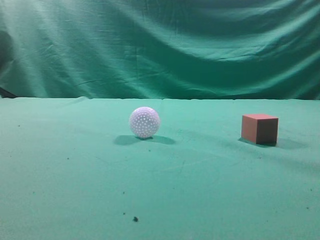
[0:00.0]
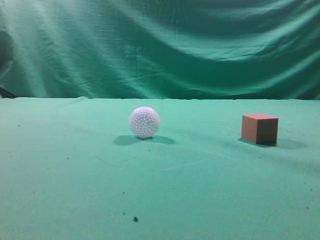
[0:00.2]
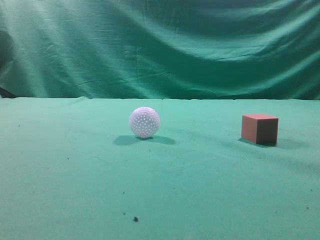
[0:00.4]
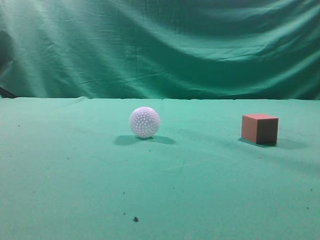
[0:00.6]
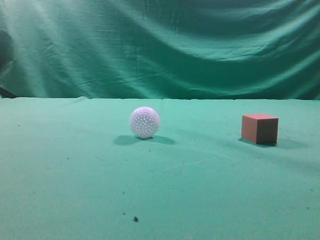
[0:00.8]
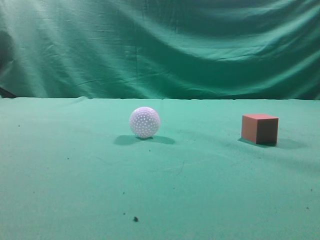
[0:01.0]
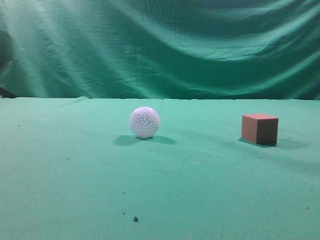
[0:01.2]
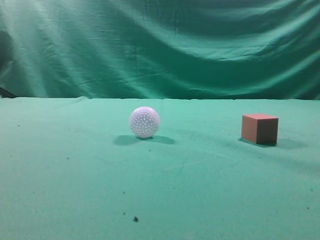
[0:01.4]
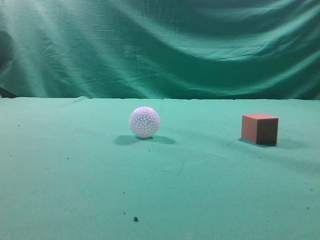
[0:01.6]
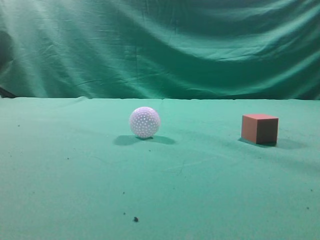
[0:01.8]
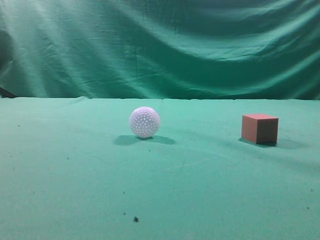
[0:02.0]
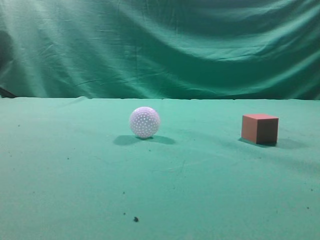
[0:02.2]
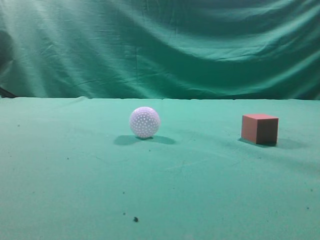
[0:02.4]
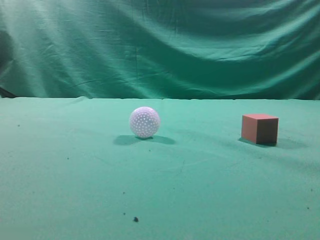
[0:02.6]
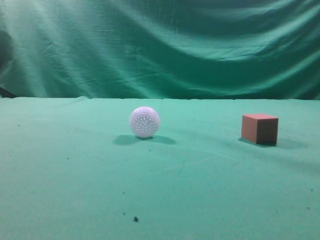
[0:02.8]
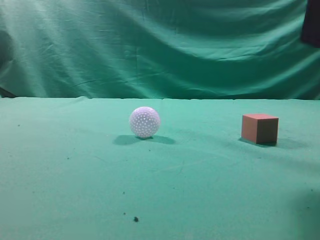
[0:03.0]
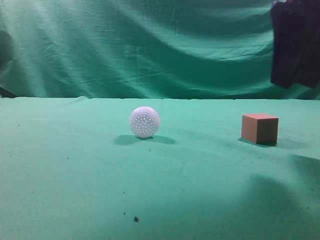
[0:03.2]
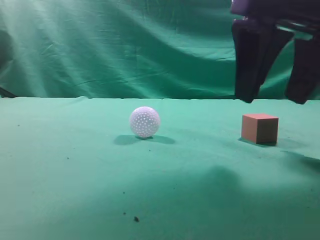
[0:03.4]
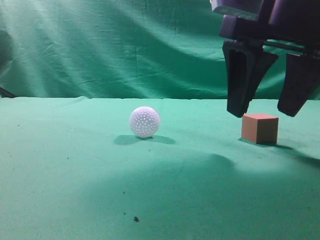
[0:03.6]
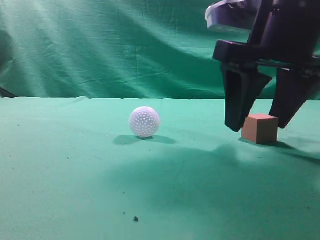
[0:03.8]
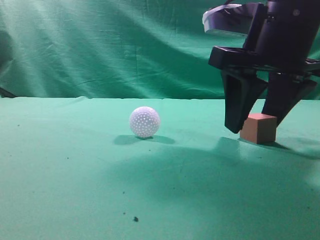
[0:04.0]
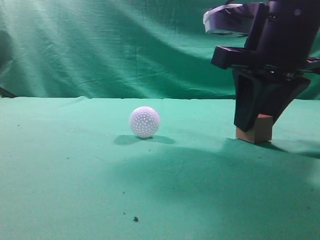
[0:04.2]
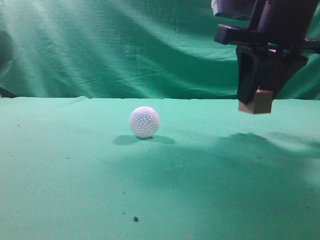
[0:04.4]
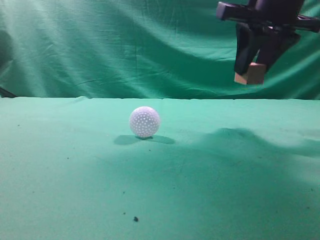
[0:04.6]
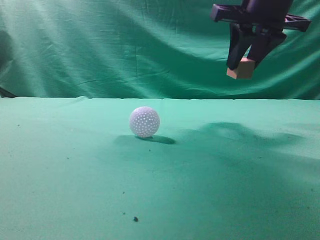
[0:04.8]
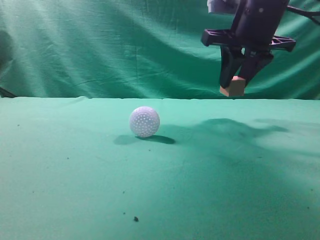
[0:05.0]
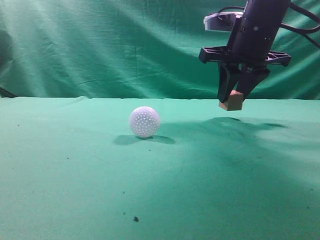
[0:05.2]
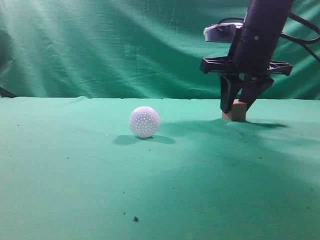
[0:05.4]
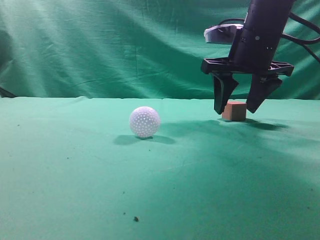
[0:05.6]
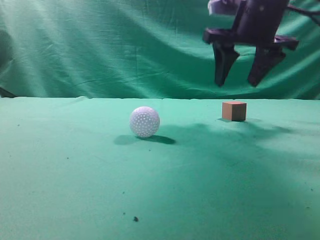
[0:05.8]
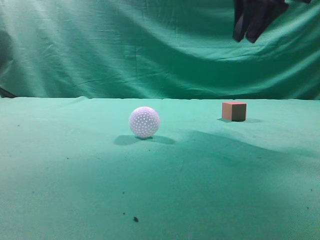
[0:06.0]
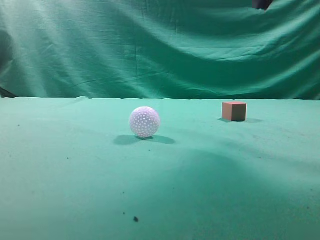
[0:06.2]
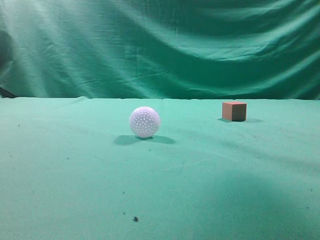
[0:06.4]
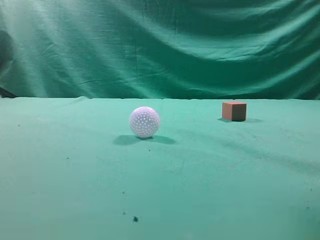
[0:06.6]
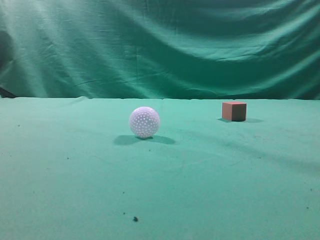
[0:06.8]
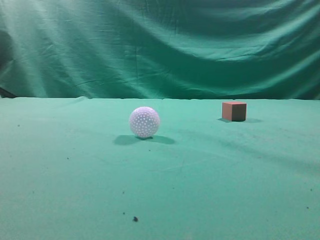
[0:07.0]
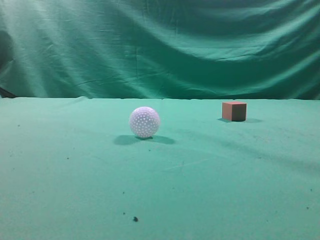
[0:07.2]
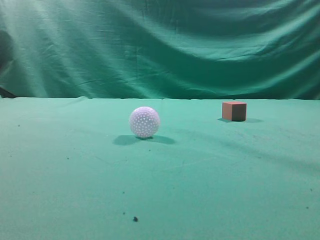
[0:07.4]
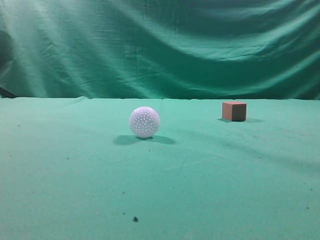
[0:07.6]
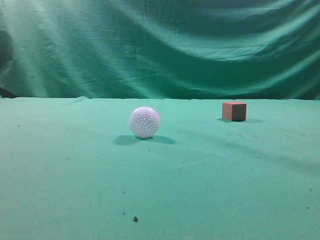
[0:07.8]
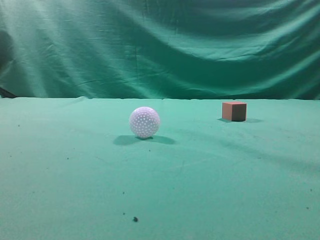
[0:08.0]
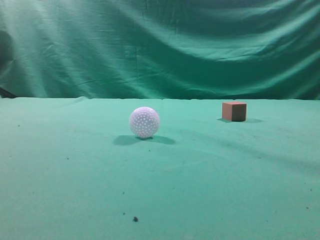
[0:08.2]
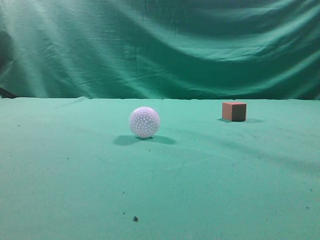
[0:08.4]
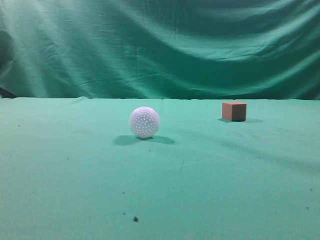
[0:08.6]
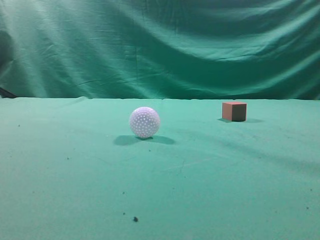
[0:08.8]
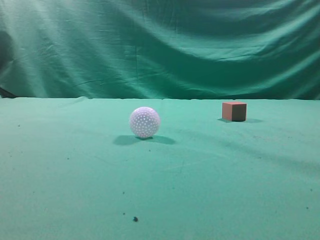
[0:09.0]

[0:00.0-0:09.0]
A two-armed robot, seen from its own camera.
Task of the whole recording: pick up the cube block and place it in another position on the table.
Step, 0:00.0 to 0:04.2: Pick up the small cube.
Step, 0:04.4 to 0:05.6: Place the small cube on the ahead of the table.
0:01.6 to 0:03.0: The right gripper goes about 20 cm forward and to the left.
0:03.0 to 0:04.4: The right gripper travels forward by approximately 10 cm, and opens and closes again.
0:04.4 to 0:06.0: The right gripper is displaced upward by about 10 cm, and opens and closes again.
0:06.0 to 0:07.6: The right gripper shifts about 20 cm backward and to the right.
